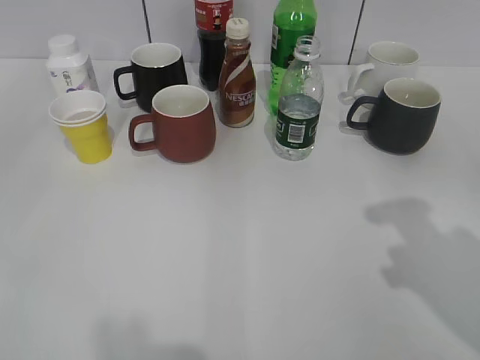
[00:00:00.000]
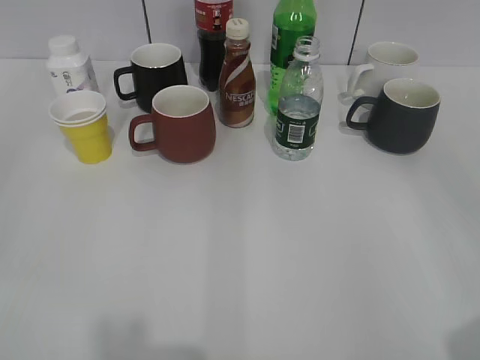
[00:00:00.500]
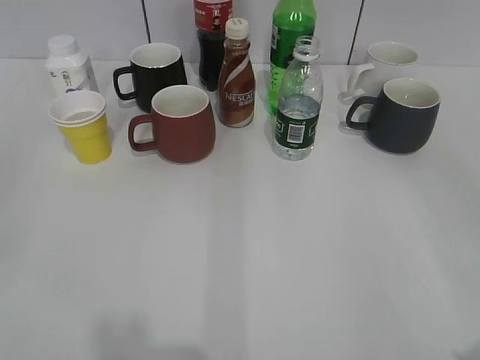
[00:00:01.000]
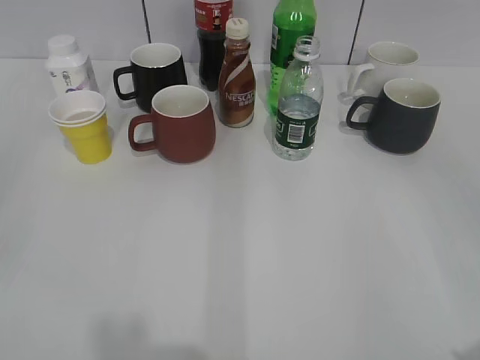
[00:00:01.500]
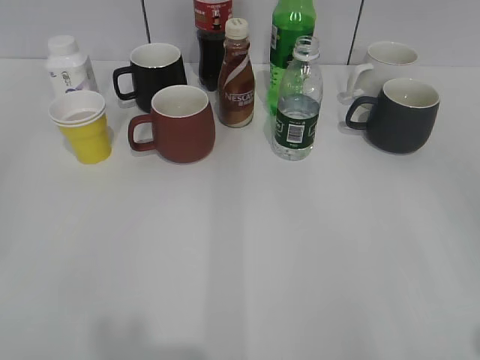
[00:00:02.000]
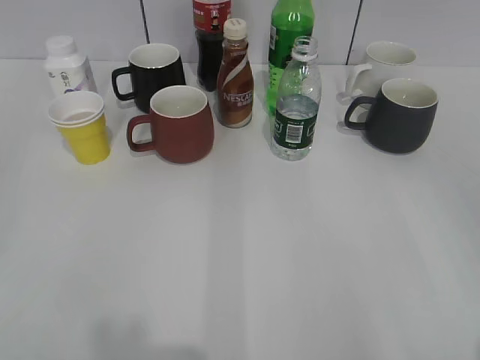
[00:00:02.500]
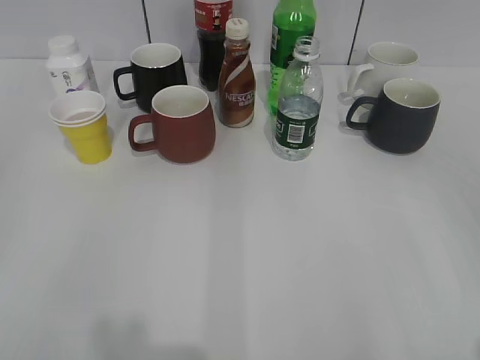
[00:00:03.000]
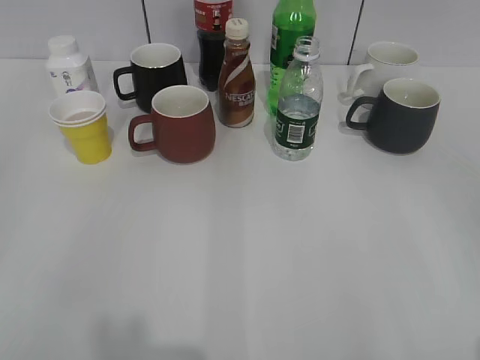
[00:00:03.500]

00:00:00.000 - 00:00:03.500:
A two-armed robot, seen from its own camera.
00:00:00.000 - 00:00:02.000: The right gripper heads backward, covering about 15 cm; the left gripper shifts roughly 10 cm downward.
